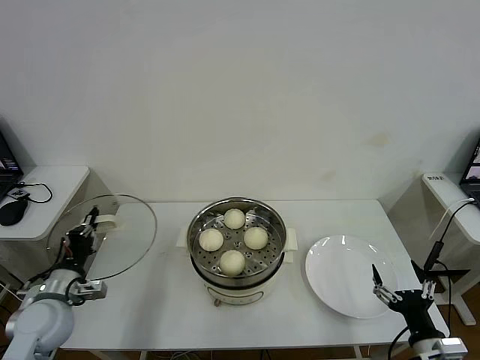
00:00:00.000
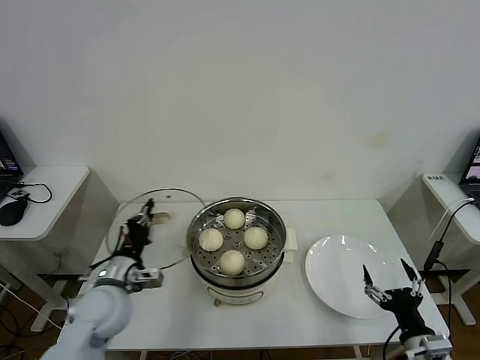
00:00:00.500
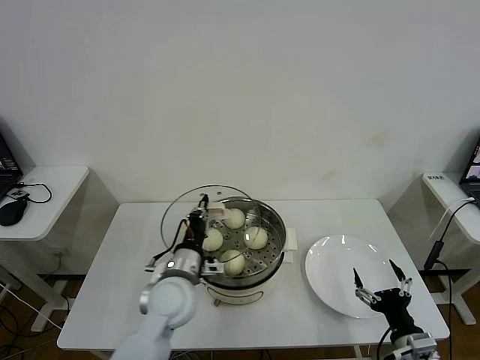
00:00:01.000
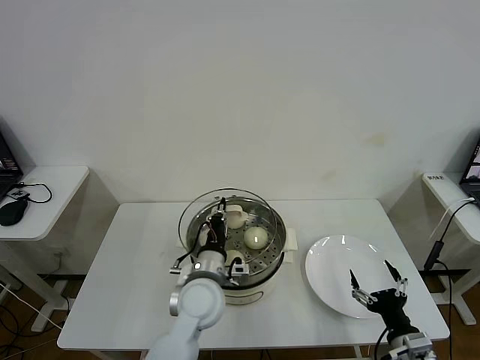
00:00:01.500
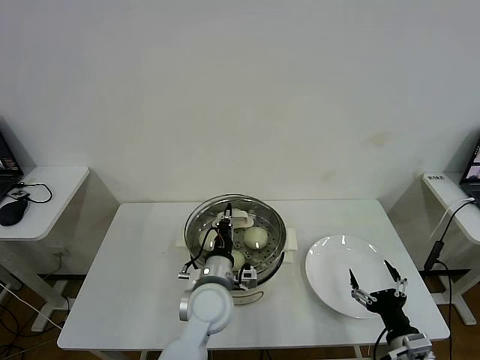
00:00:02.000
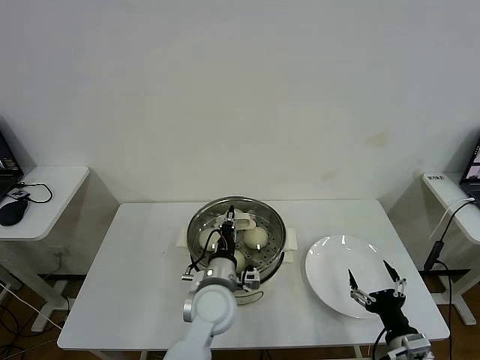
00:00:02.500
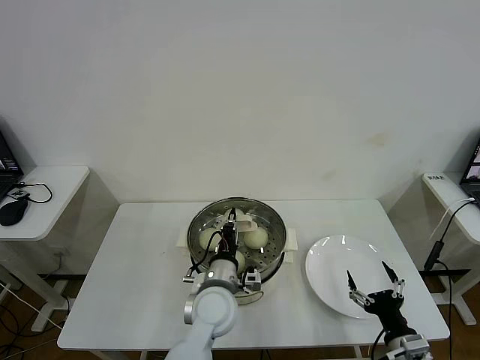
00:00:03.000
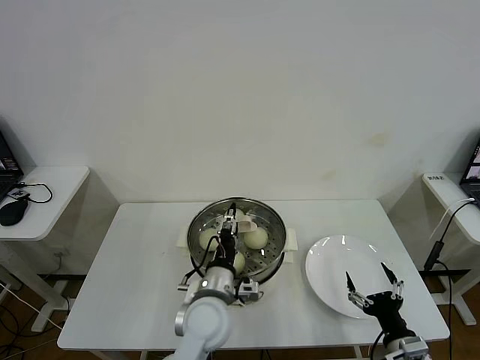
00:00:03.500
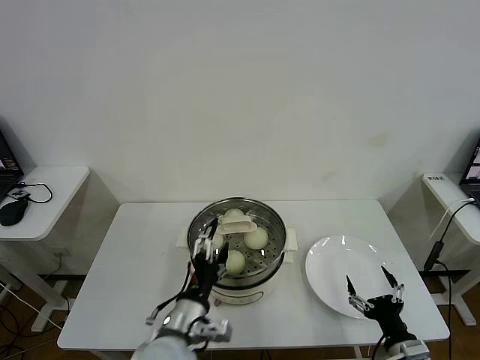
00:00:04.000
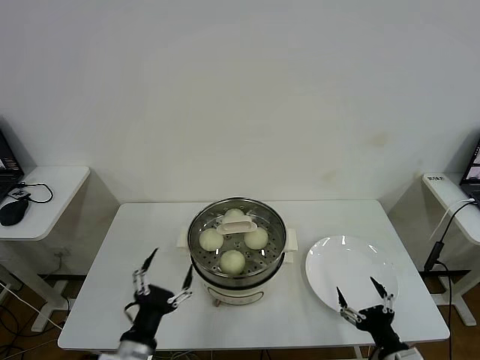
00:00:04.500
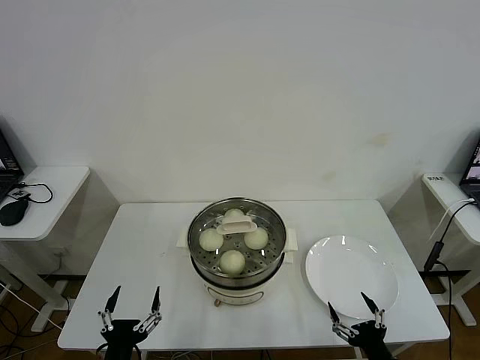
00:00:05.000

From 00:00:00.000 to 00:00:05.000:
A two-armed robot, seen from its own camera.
Task of the whole recording: take steamed baozi put them in steamer then cover it.
Step, from 00:00:00.000 to 00:00:03.500: Place the pot lid on the steamer with left gripper.
From 00:00:00.000 to 00:00:02.500: The left gripper is displaced to the right by approximately 35 cm.
From 00:00:02.500 to 00:00:05.000: The left gripper travels backward and to the left by some 30 cm, and opens its fingers, while the right gripper moves roughly 5 cm.
